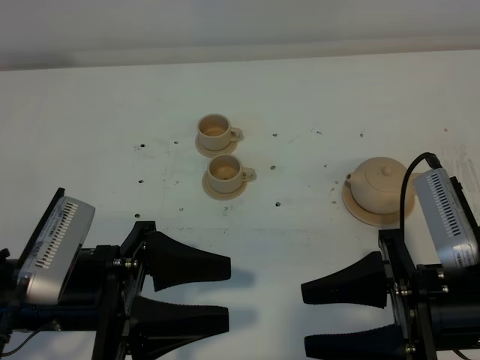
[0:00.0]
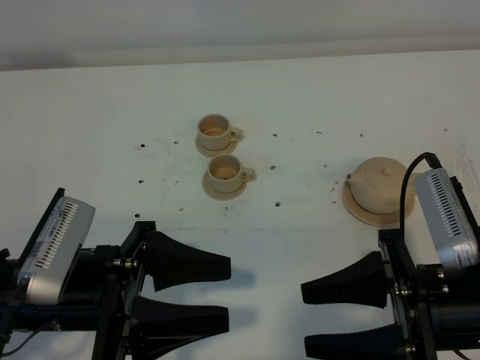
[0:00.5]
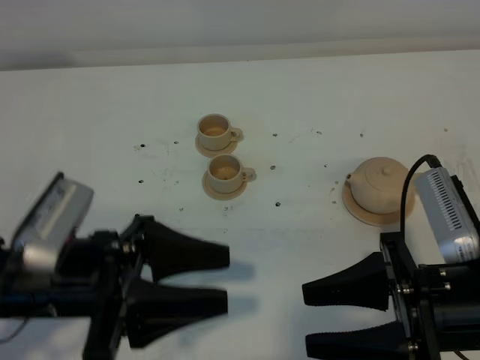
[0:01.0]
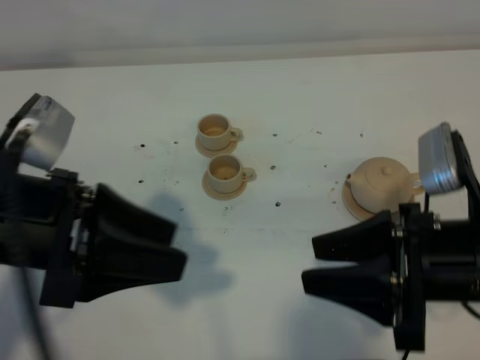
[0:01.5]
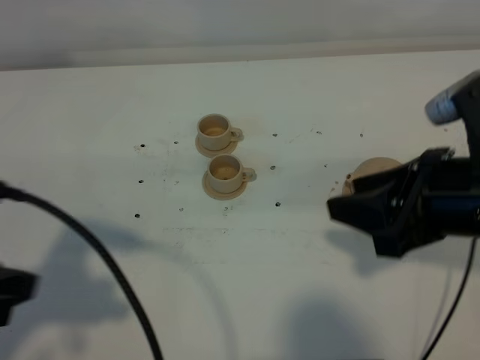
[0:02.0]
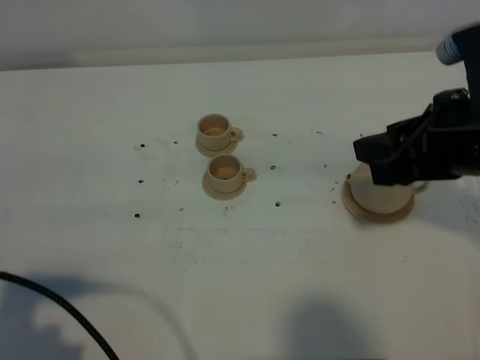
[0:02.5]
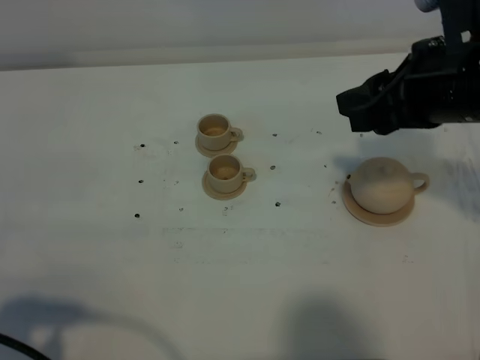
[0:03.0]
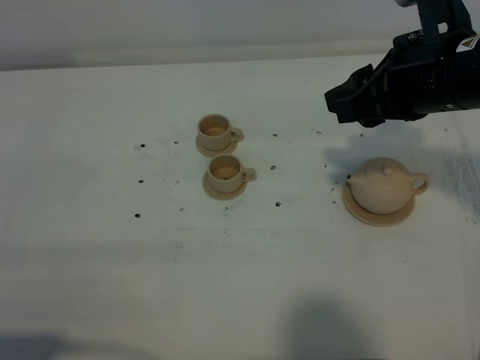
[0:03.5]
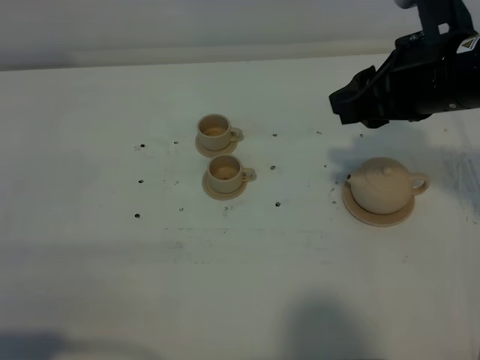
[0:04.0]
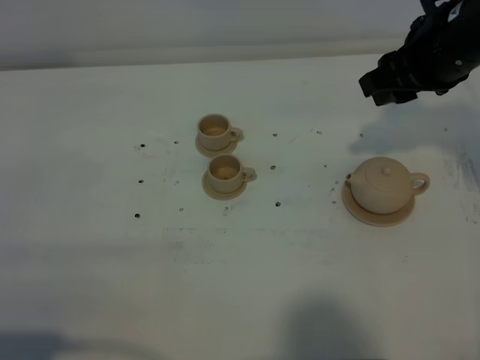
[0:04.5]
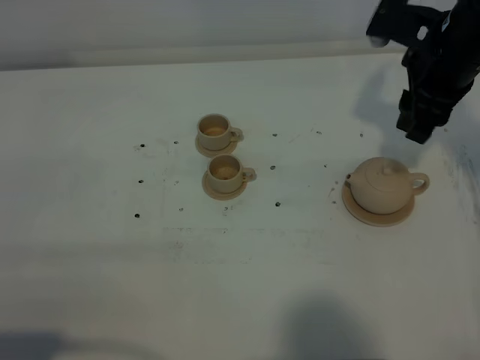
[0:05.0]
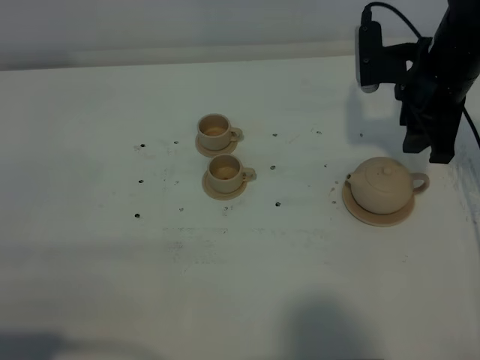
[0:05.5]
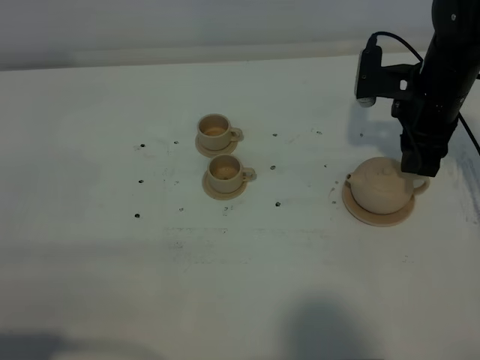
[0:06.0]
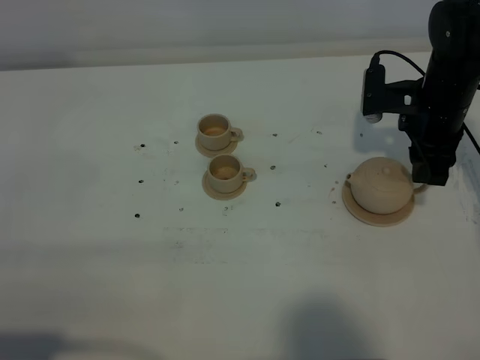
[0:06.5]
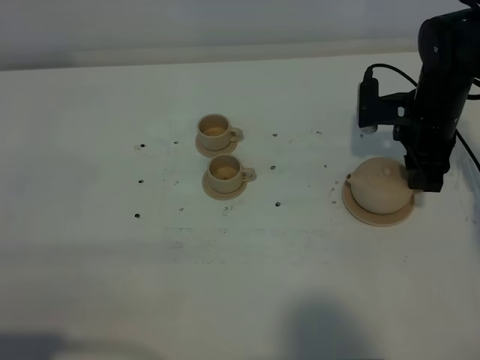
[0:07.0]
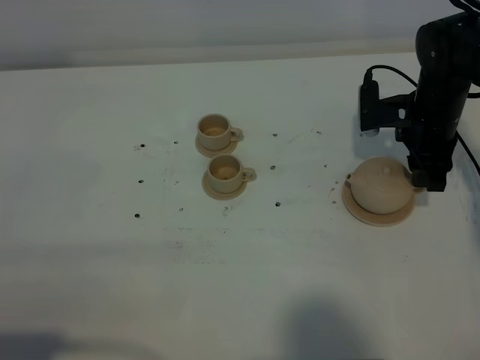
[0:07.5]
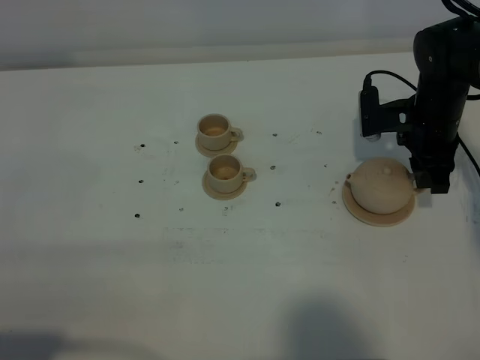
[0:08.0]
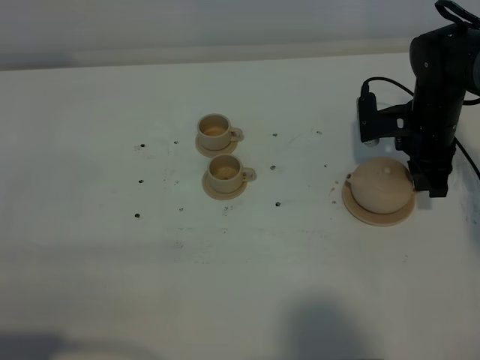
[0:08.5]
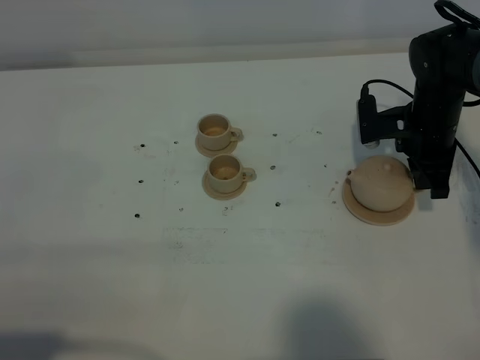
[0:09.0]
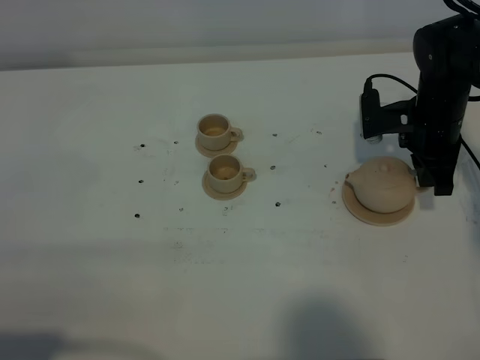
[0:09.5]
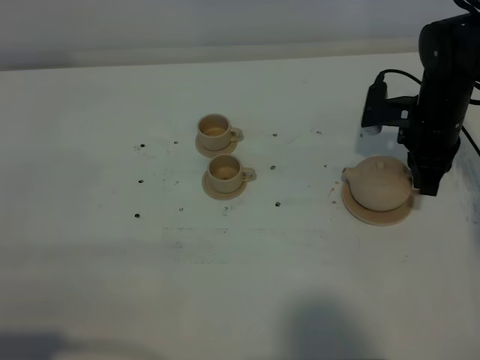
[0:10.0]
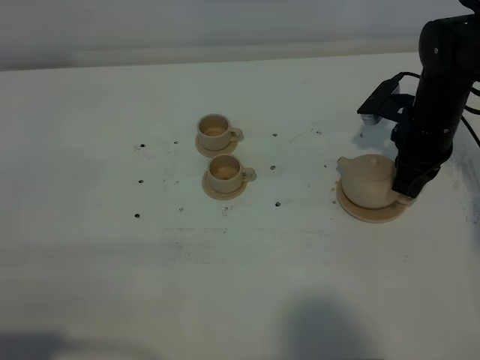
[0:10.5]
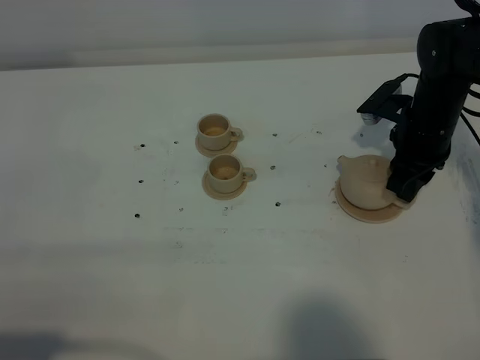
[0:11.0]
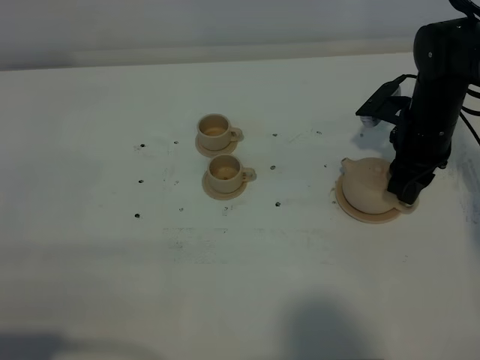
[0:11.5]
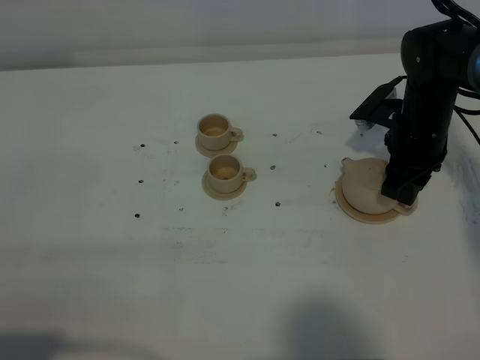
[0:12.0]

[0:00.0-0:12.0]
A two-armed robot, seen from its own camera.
Task of the whole recording: grasp the brown teapot and pour the tea into the two brown teacups one by one, put the brown teapot back in its original place.
0:00.0 to 0:02.0: The right gripper is displaced forward and upward by approximately 10 cm. Meanwhile the left gripper goes some 15 cm upward and to the left.
0:02.0 to 0:04.0: The left gripper goes some 10 cm backward. The right gripper shifts about 10 cm forward.
0:04.0 to 0:06.0: The right gripper heads downward and forward, covering some 15 cm.
0:06.0 to 0:08.0: The right gripper shifts approximately 5 cm downward.
0:08.0 to 0:10.0: The right gripper closes its fingers.
0:10.0 to 0:12.0: The right gripper opens its fingers.

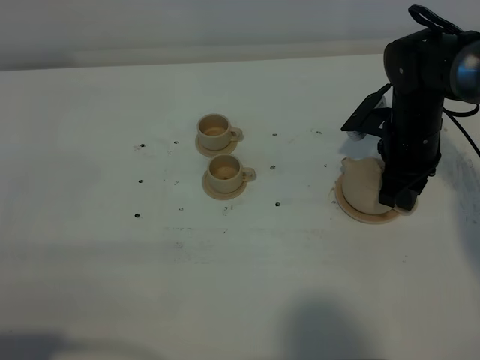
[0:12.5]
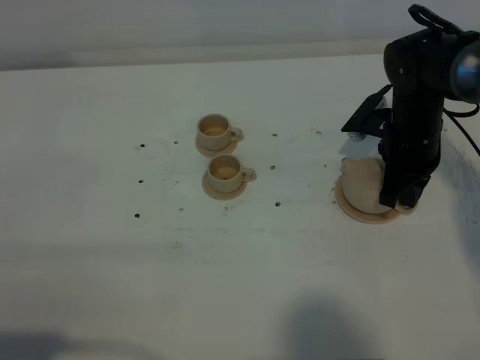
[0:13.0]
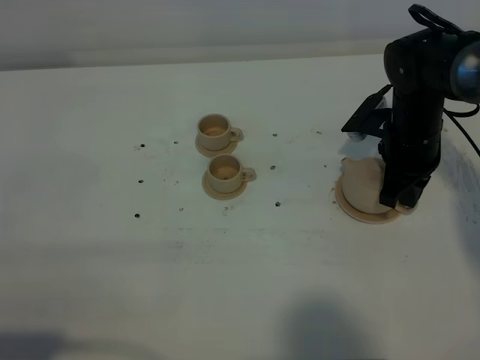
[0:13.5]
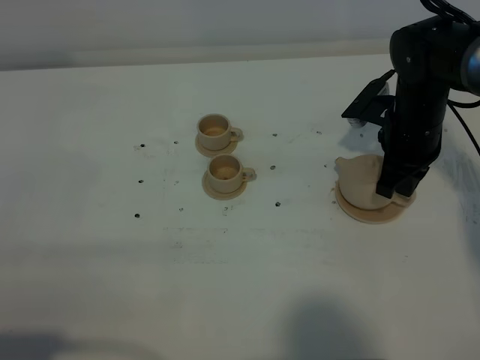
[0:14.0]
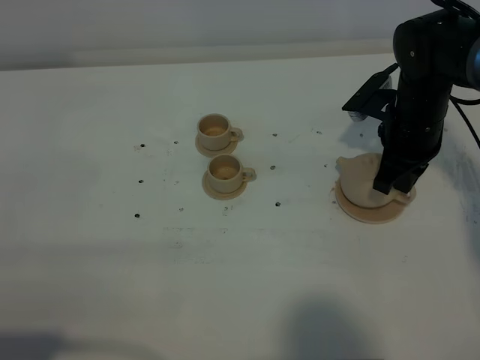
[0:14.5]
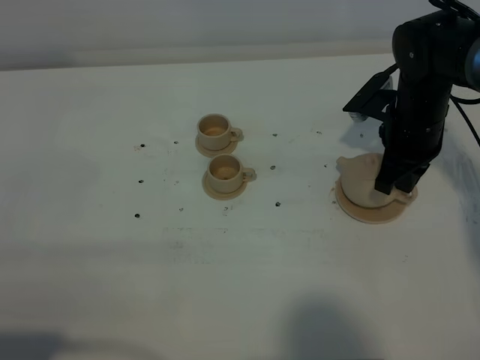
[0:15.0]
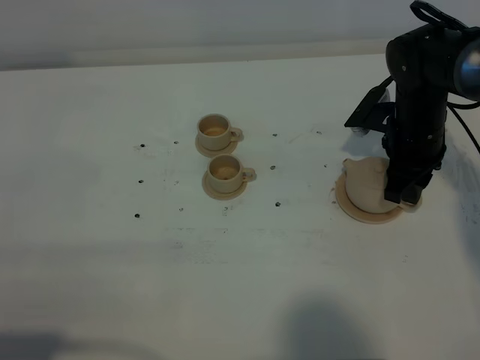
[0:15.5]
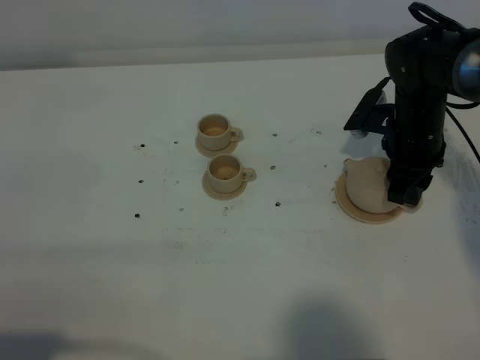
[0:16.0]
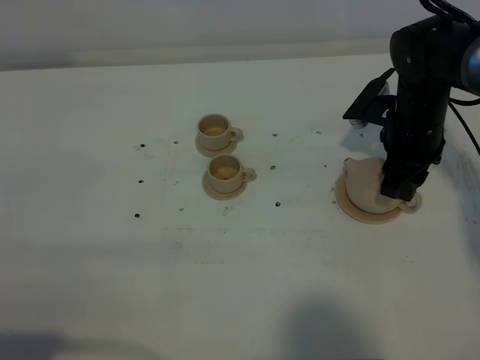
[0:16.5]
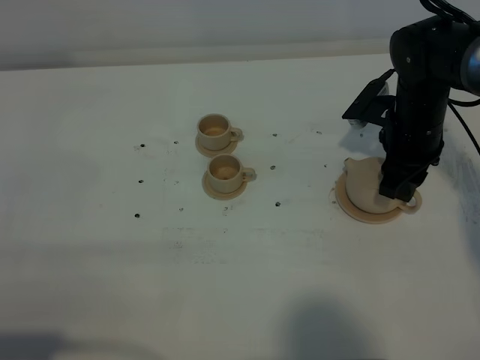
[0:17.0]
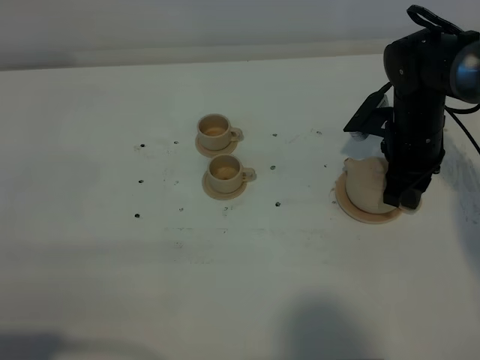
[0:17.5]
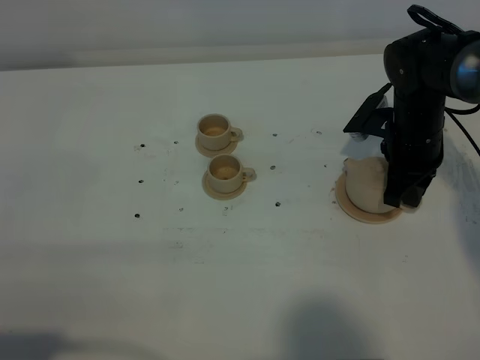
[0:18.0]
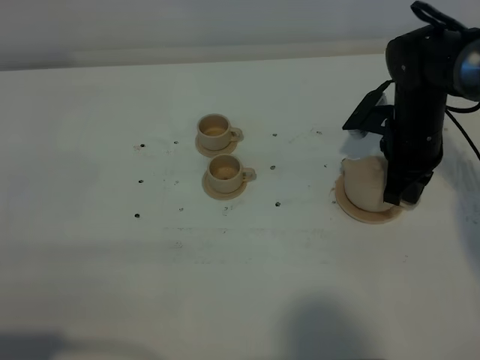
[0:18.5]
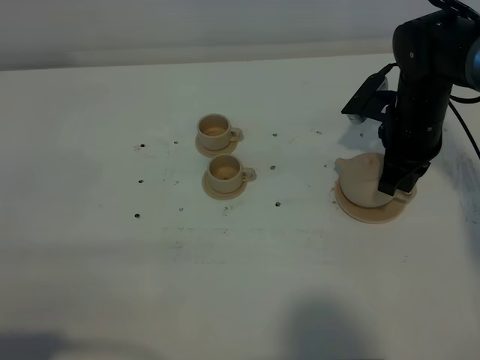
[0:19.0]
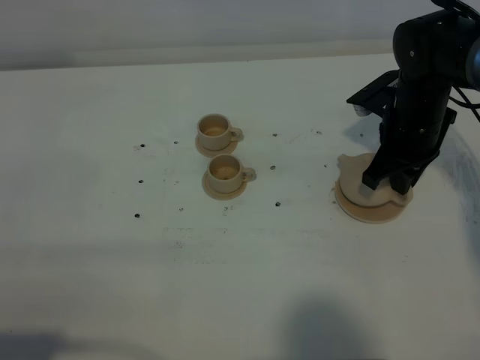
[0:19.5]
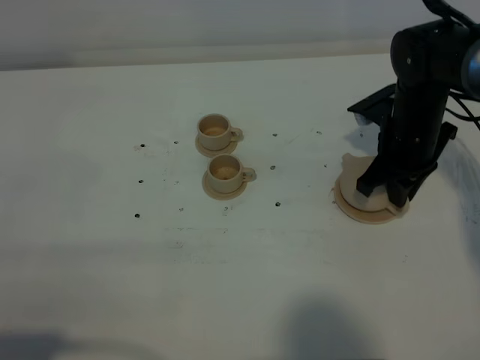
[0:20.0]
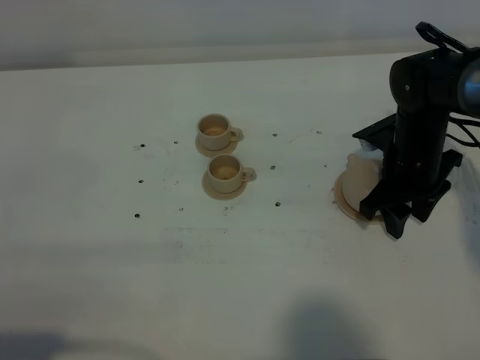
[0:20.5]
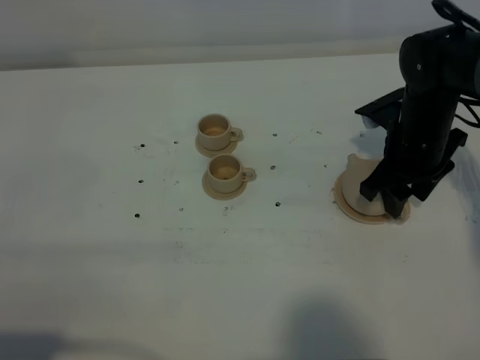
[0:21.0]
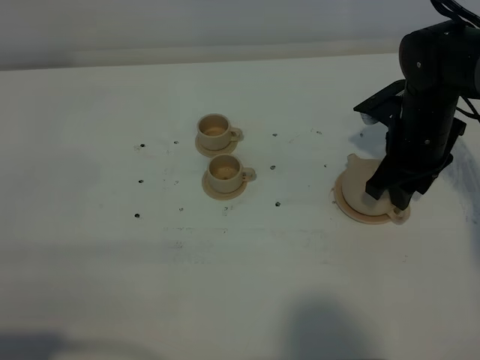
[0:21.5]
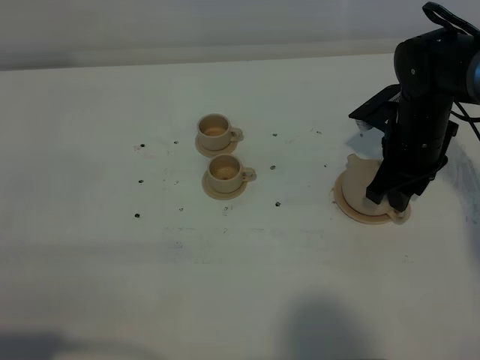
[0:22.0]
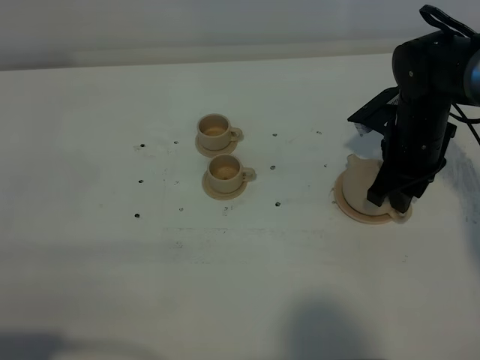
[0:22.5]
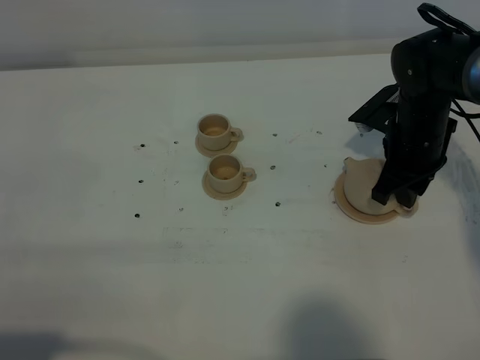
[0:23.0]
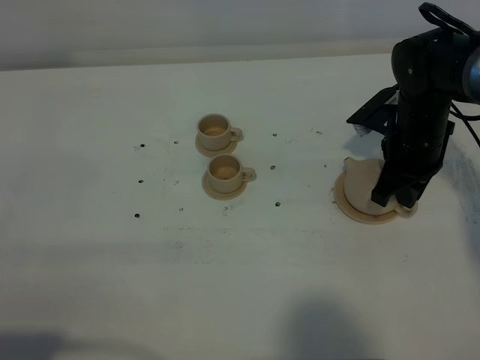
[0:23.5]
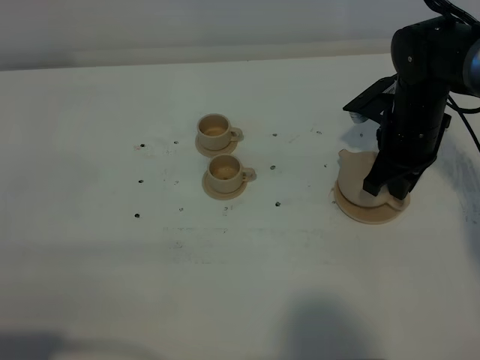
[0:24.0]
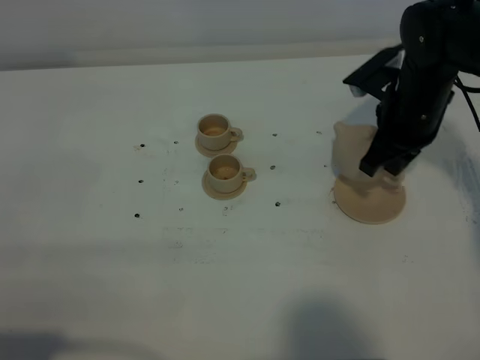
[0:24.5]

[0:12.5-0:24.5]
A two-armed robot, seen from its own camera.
Task of the whole recording: grasp the brown teapot and pour the tea into the two brown teacups one by one, put the brown teapot back in its original place.
Step, 0:12.5 to 0:24.0: Pick up the teapot with the right gripper.
0:12.5 to 0:14.5: The right gripper closes.
0:14.5 to 0:16.5: The right gripper opens its fingers.
0:16.5 to 0:18.5: The right gripper closes up.
0:18.5 to 0:20.5: The right gripper opens up.
0:20.5 to 0:22.5: The grippers move only a little.
0:22.5 to 0:24.5: The right gripper travels upward by about 5 cm, and closes.

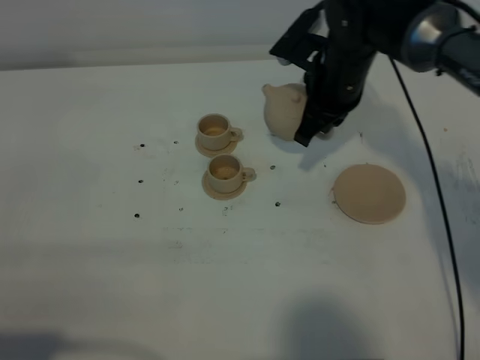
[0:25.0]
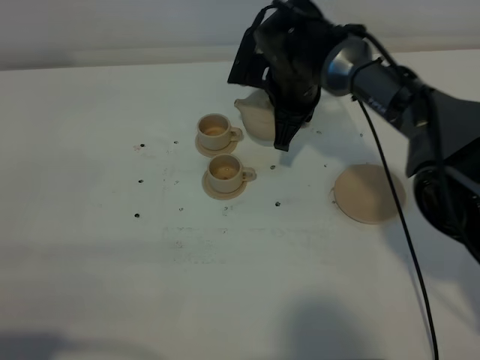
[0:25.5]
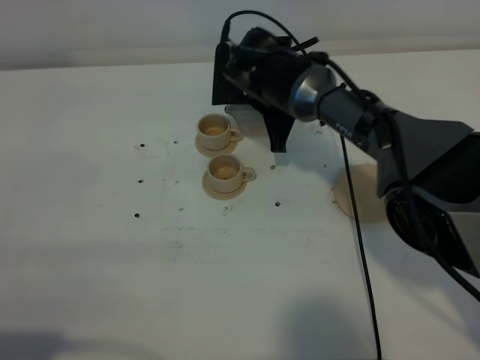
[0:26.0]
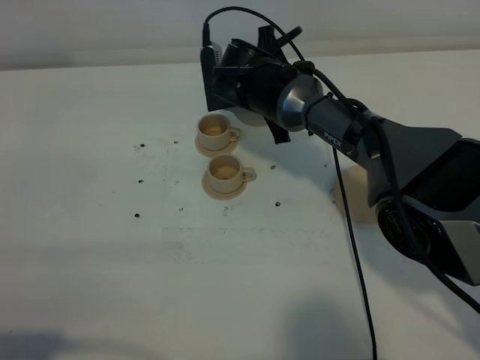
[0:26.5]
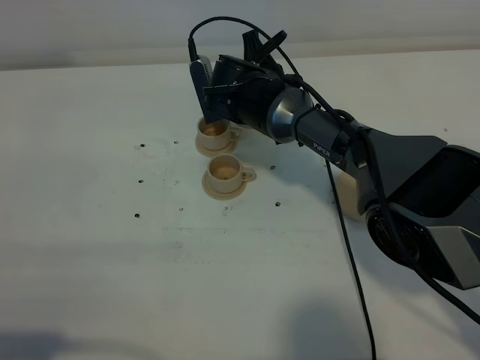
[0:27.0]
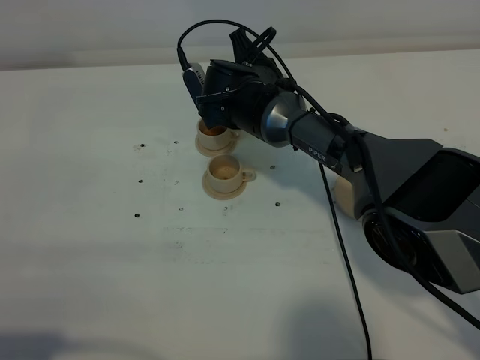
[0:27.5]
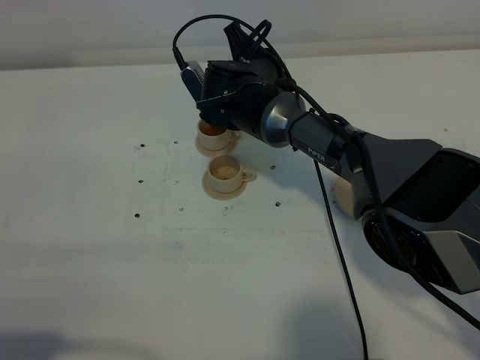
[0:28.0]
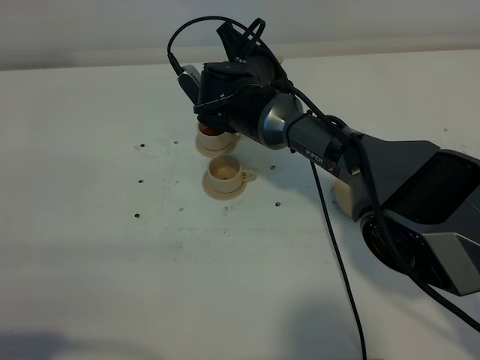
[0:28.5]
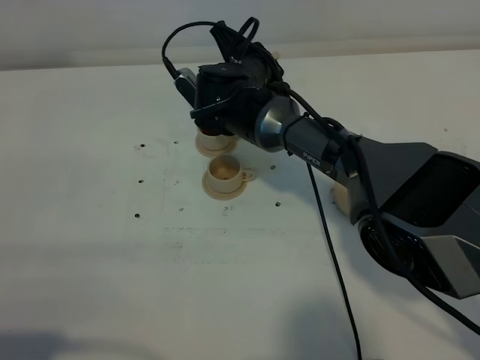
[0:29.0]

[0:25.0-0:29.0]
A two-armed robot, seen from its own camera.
Task of the whole recording: grasp the brown teapot and pour the tea into the two brown teacups one by one, put the brown teapot back in its original place.
0:25.0 to 0:27.0: The right gripper heads to the left and downward, covering approximately 10 cm.
